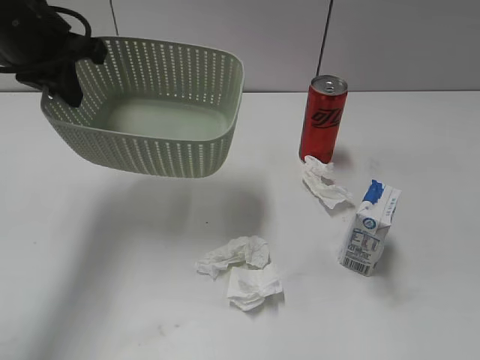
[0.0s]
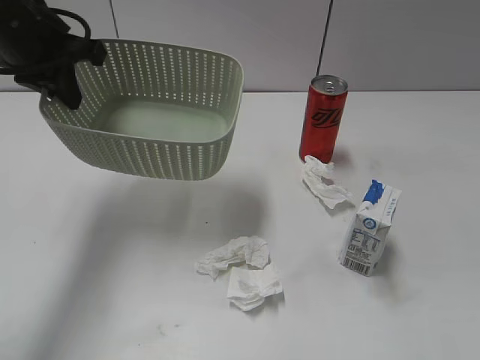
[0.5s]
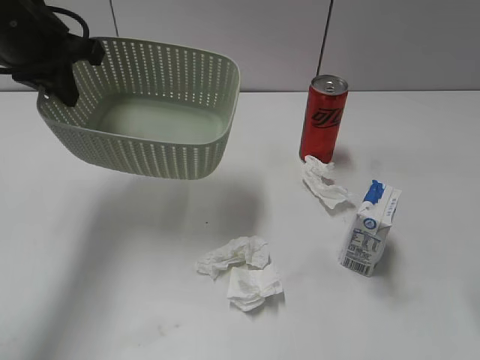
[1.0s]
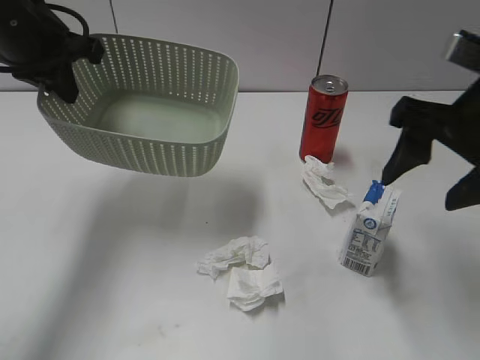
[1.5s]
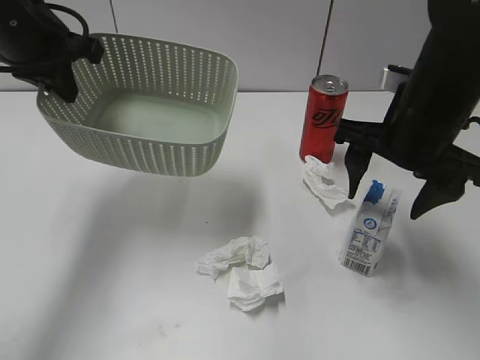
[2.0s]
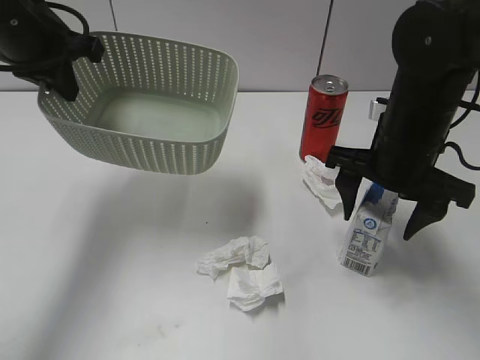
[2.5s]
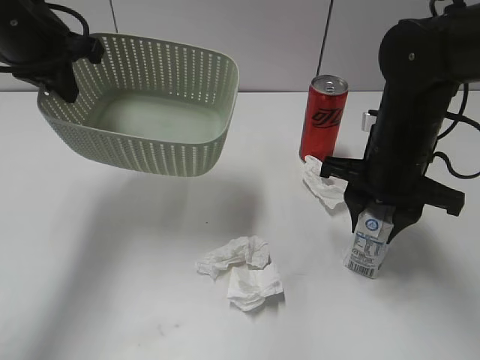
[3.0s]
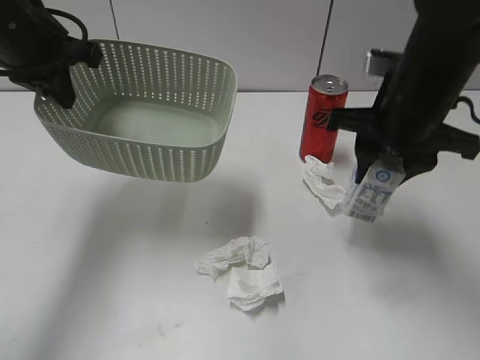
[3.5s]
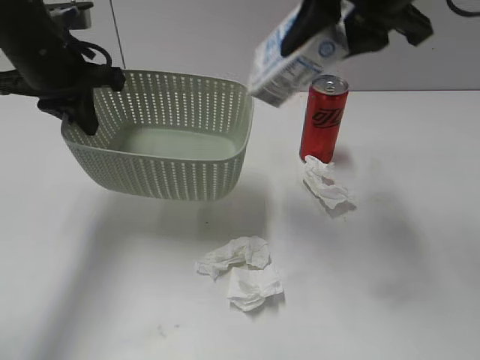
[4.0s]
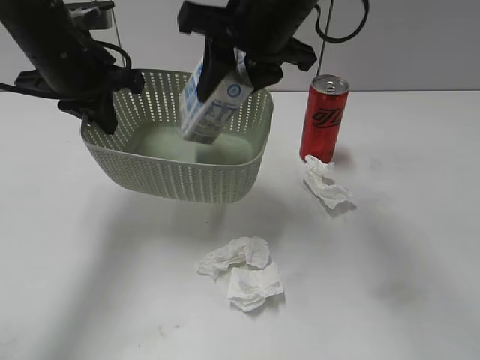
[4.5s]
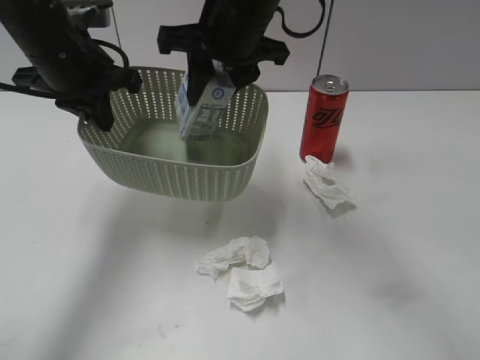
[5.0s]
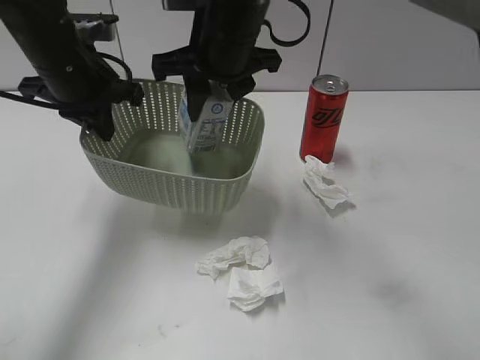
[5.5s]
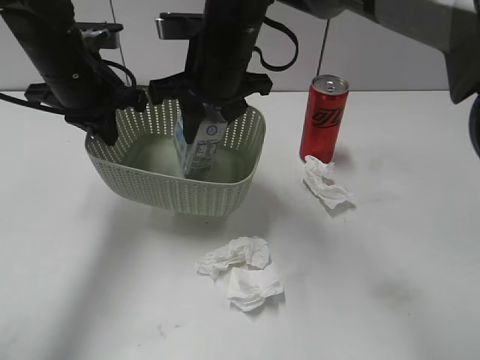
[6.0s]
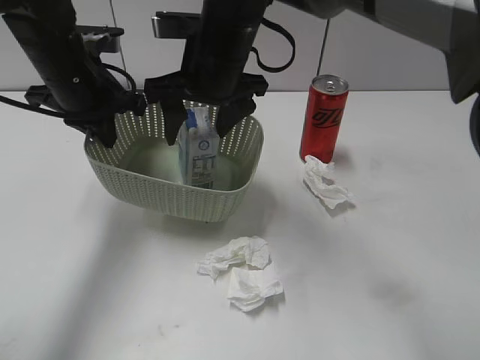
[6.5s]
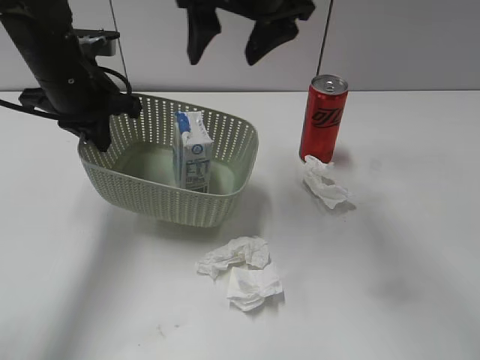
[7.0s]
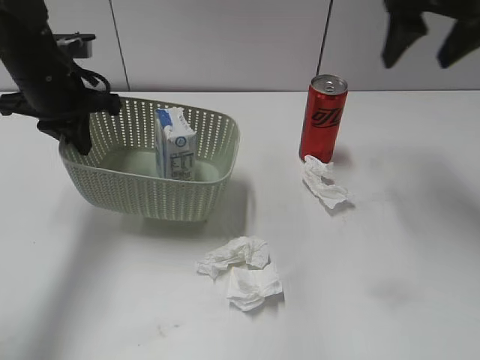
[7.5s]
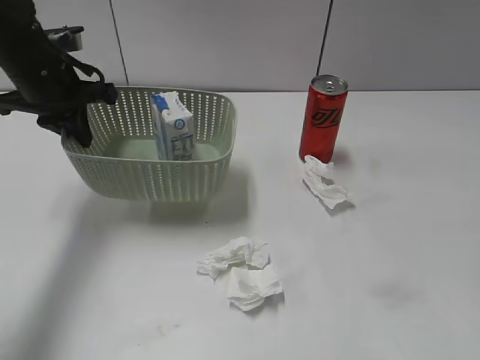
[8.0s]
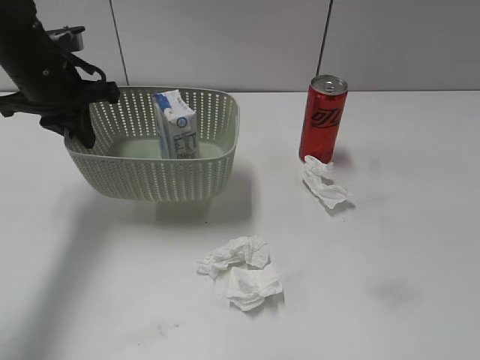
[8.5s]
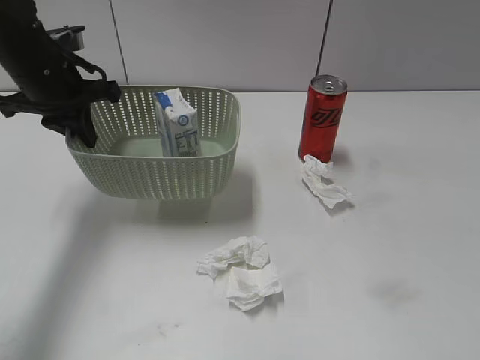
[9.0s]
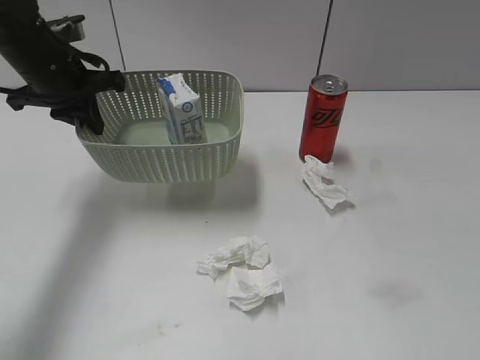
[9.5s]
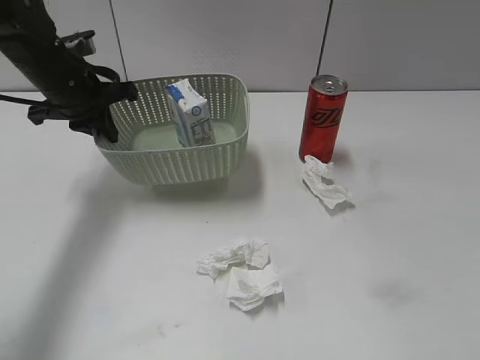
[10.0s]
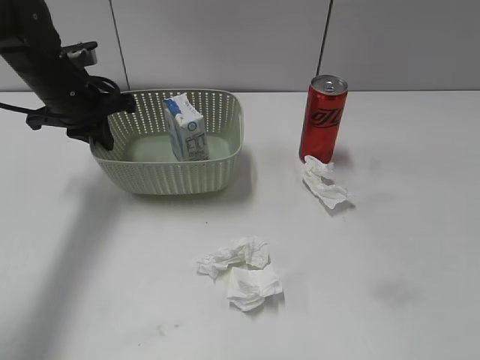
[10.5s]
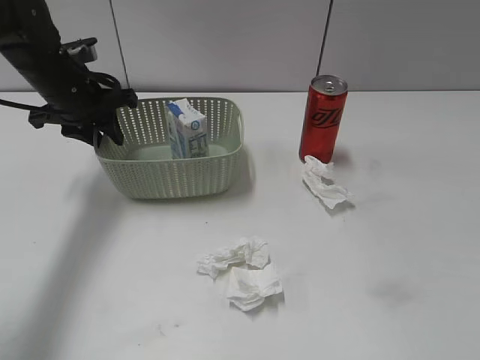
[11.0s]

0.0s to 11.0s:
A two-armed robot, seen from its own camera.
Step, 1.5s to 3.0s: Grasp the milk with right gripper.
Step, 3.5s to 6.5s: Place the milk in the basket with right gripper.
0.0s to 2.0s: The right gripper heads forward and to the left, covering some 30 cm.
2.0s to 3.5s: The right gripper moves approximately 5 cm downward and comes back, and closes its fingers.
3.5s to 5.5s: The left gripper is displaced downward by some 5 cm. The right gripper moves to the left, approximately 20 cm.
5.5s to 7.5s: The right gripper shifts roughly 25 cm to the right, and opens up.
7.5s to 9.0s: The right gripper is displaced backward by approximately 40 cm.
9.0s to 11.0s: The left gripper opens up.

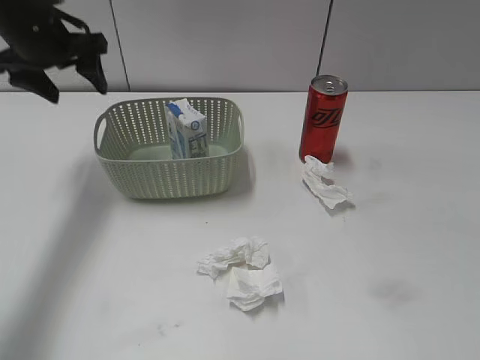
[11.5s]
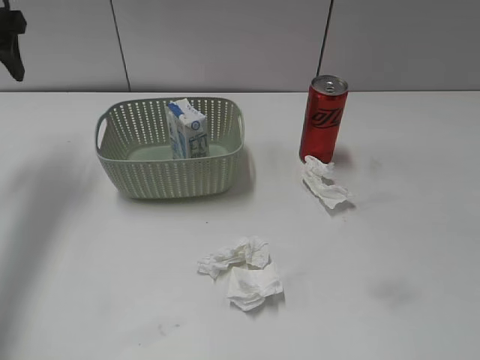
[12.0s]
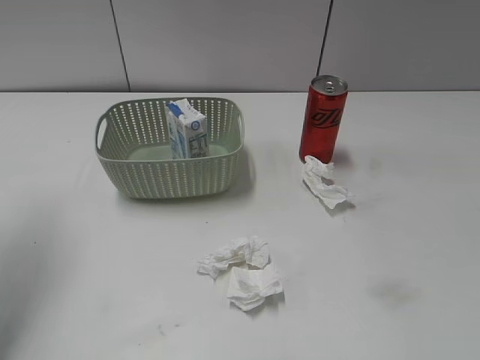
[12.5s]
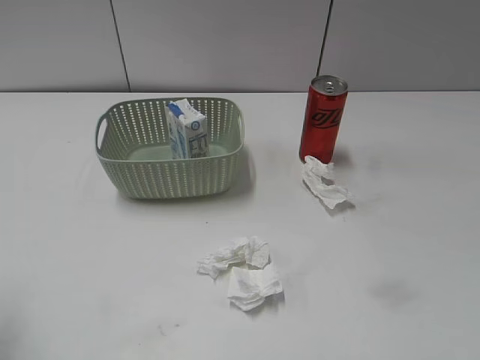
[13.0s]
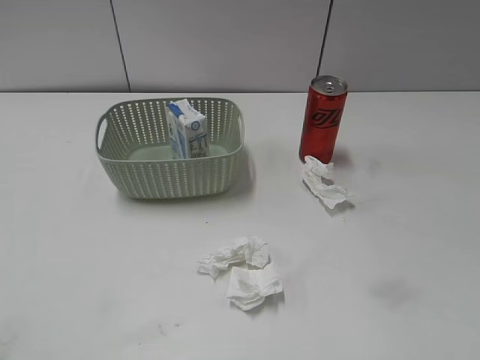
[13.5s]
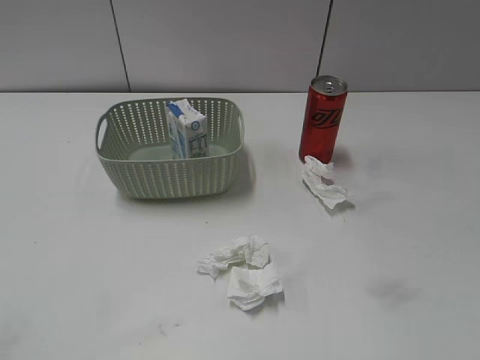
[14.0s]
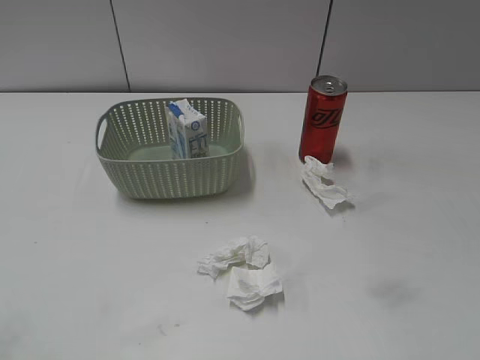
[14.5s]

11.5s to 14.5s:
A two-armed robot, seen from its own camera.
11.5s to 13.0s: The left gripper shifts roughly 30 cm backward.
